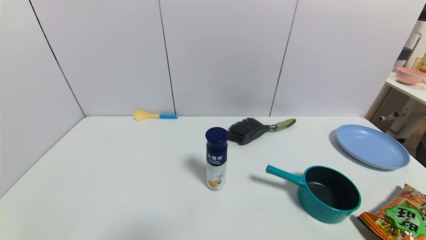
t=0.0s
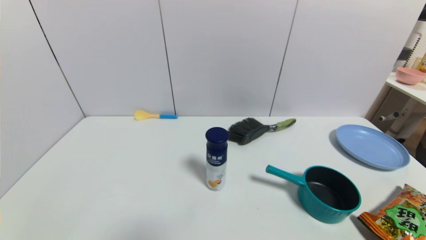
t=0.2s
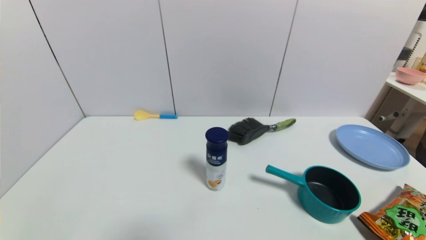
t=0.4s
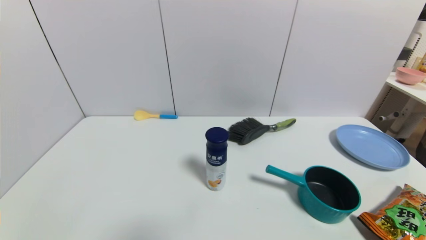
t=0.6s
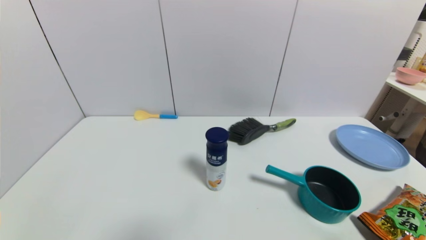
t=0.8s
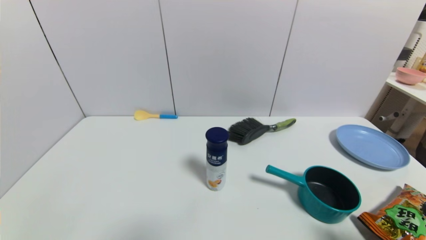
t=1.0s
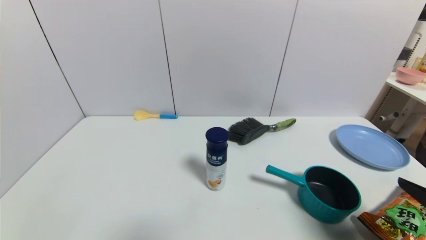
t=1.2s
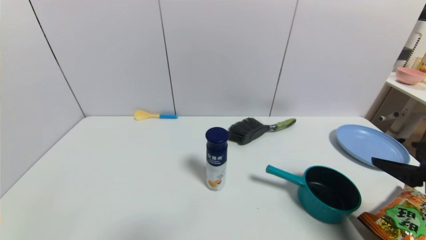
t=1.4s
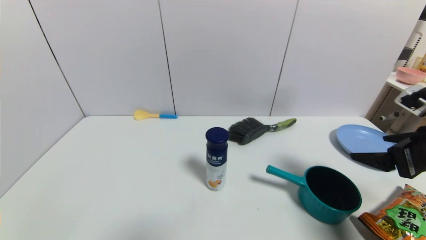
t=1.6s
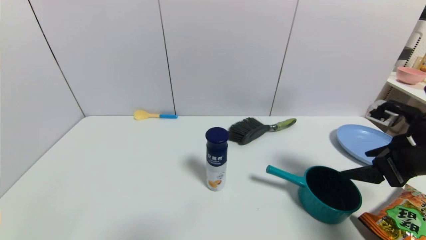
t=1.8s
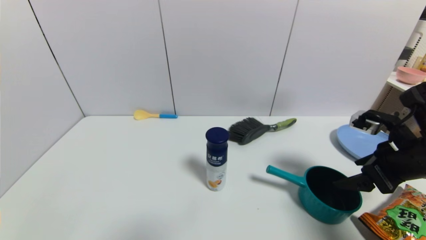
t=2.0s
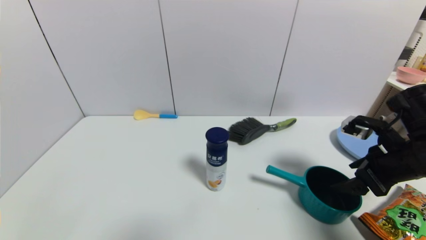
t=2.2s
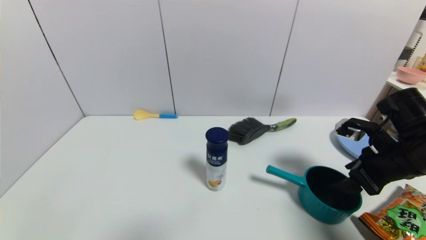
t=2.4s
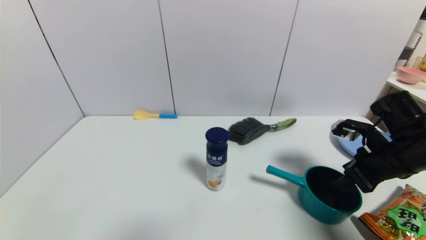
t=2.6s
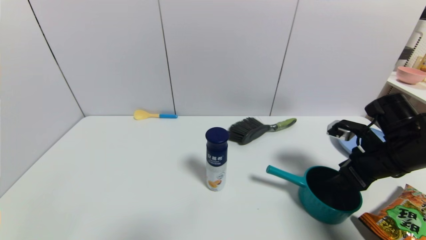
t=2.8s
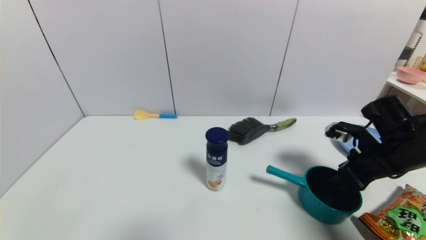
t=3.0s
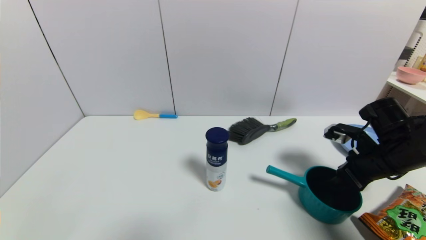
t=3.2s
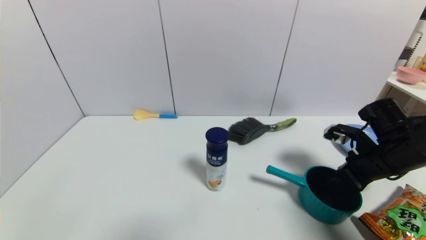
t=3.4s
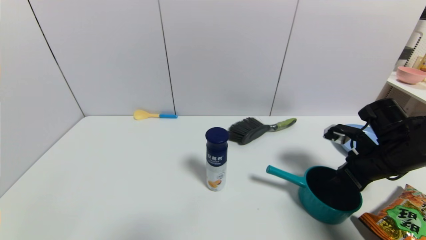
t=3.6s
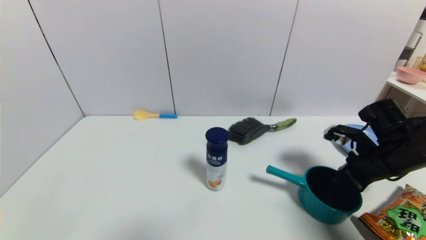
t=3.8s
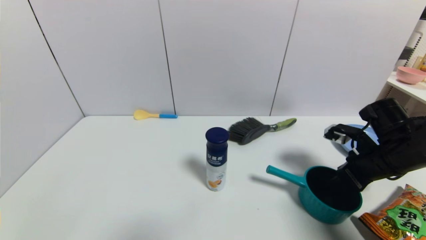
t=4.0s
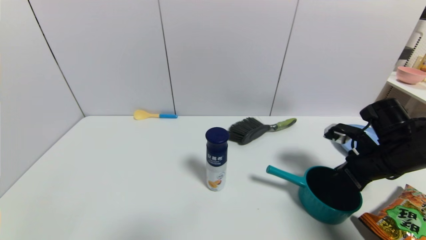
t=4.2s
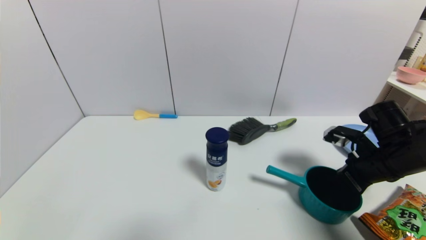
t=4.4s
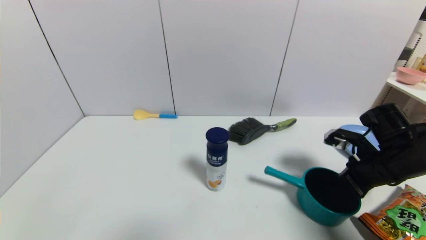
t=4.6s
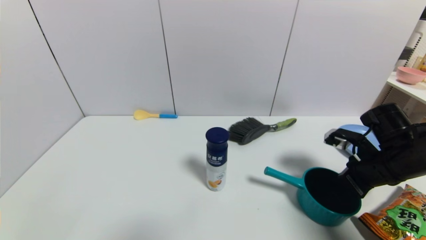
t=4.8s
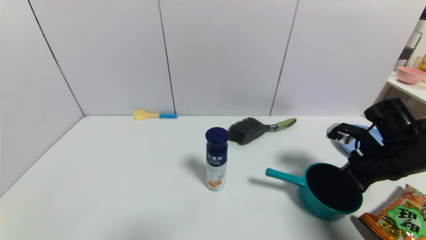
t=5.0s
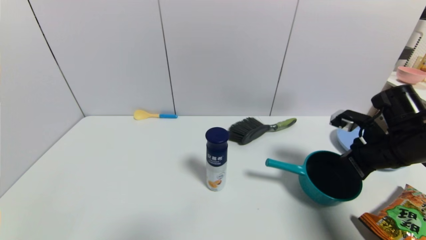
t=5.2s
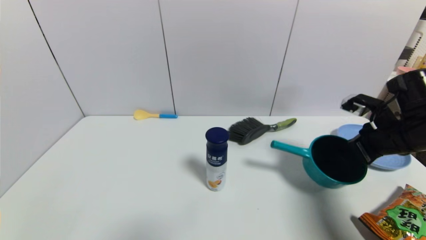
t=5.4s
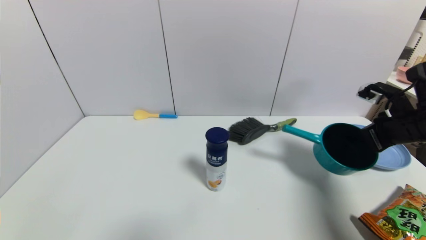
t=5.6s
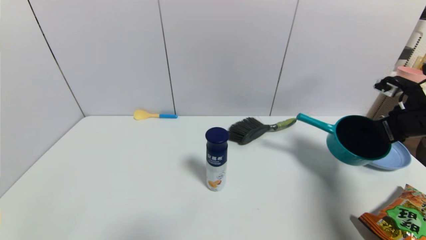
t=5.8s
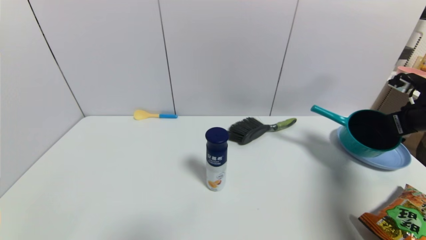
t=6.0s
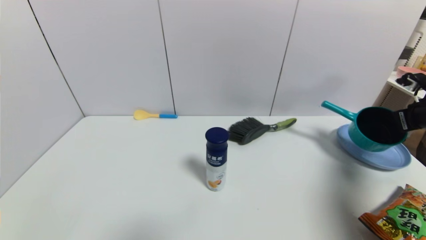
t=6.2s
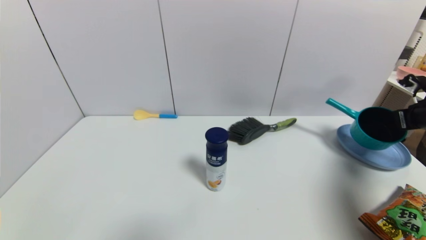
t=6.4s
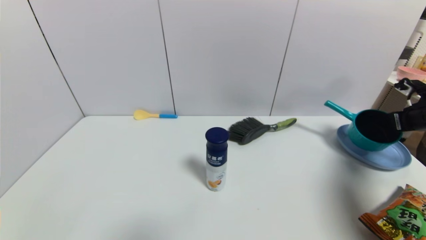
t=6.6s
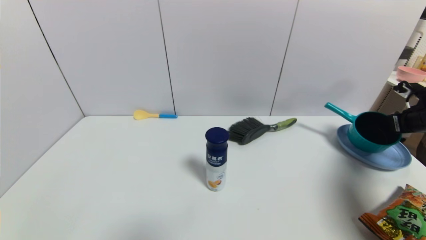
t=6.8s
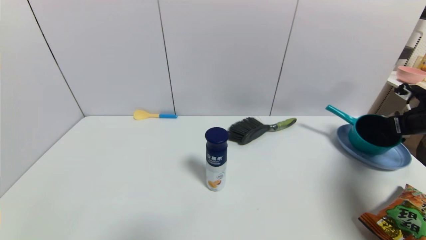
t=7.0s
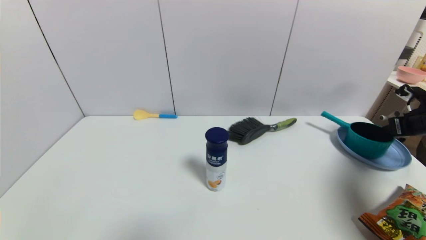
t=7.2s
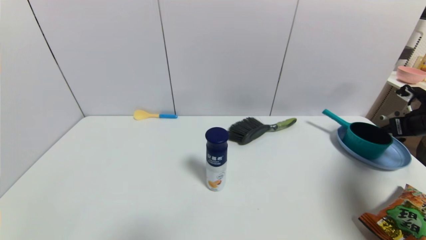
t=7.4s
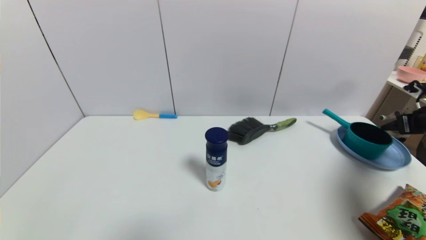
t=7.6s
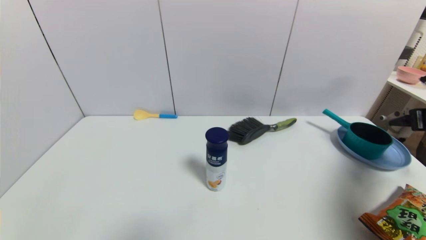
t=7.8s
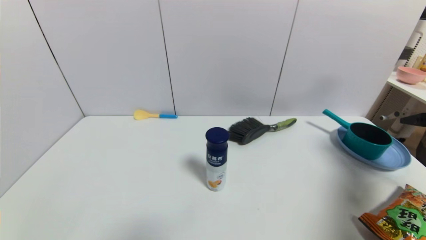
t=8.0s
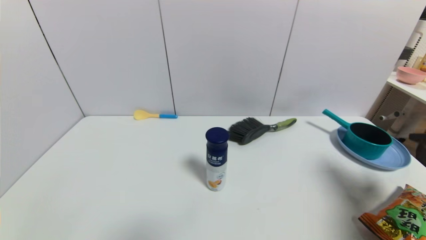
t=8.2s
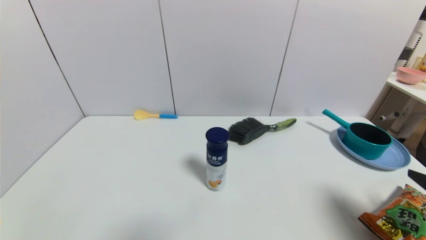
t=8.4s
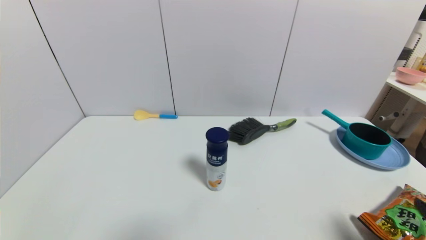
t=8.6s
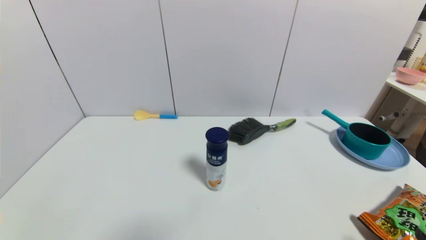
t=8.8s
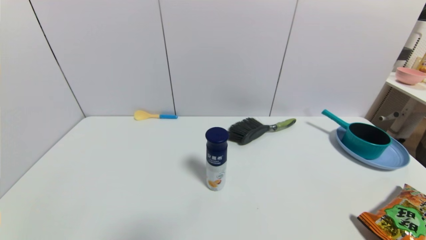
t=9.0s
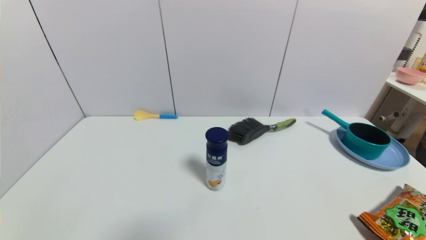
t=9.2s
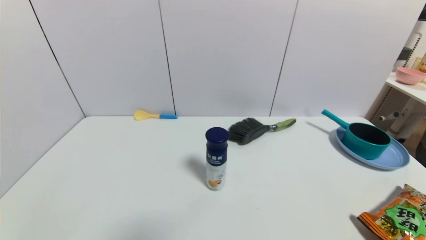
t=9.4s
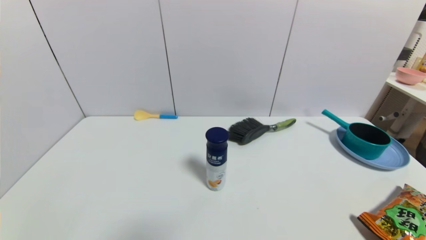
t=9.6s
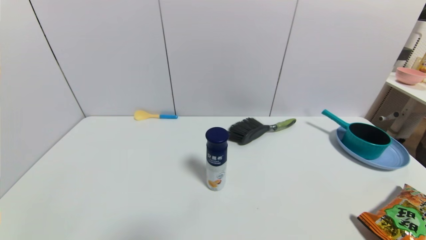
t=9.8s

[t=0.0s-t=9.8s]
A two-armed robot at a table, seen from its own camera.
Task of the whole recording: use a gripper to pick the target object and place on the blue plate.
Step, t=0.0s to t=4.6s: Grasp the blue pot with the right gripper.
Step, t=4.8s to t=8.0s: Place the blue pot on the blue plate with the right gripper.
t=0.0s to t=1.4s: The right gripper moves forward and upward, roughly 20 cm.
t=1.4s to t=2.8s: The right gripper moves forward and downward, approximately 15 cm.
t=2.8s to t=4.2s: The right gripper closes.
t=4.2s to t=5.6s: The right gripper goes roughly 5 cm upward, and closes.
t=5.6s to t=7.0s: The right gripper shifts about 15 cm to the right and forward.
t=7.0s to t=8.4s: The right gripper travels backward and to the left by some 30 cm, and opens its fingers.
t=8.4s to t=9.8s: The right gripper goes roughly 15 cm downward and backward.

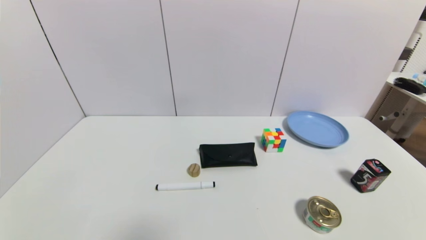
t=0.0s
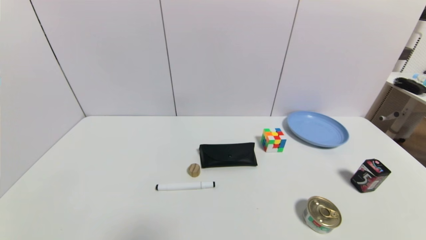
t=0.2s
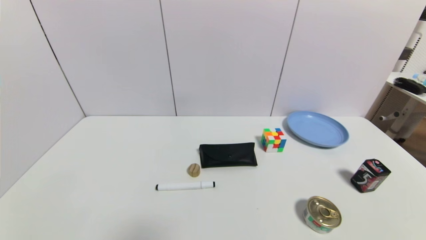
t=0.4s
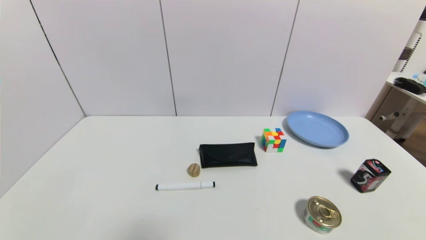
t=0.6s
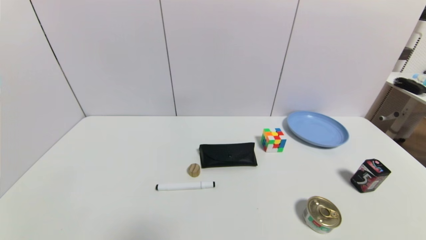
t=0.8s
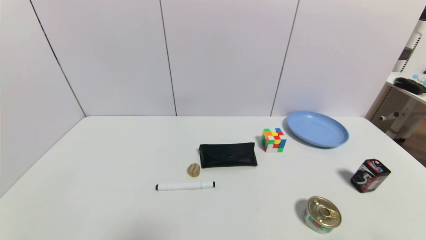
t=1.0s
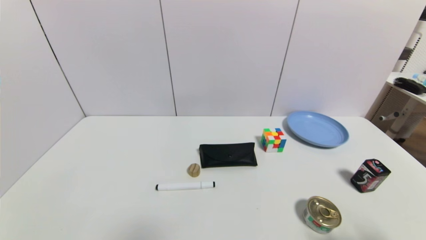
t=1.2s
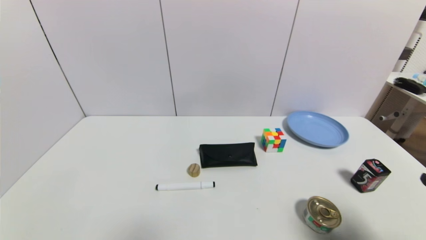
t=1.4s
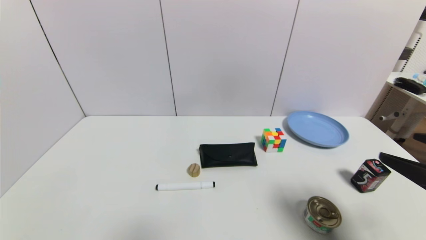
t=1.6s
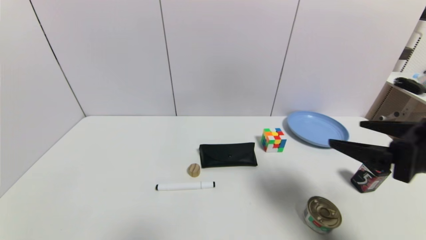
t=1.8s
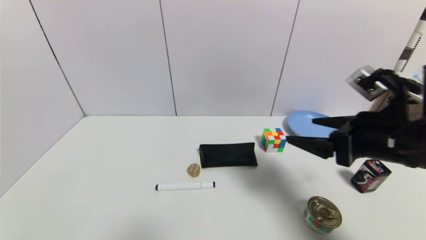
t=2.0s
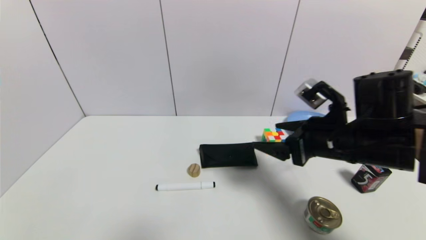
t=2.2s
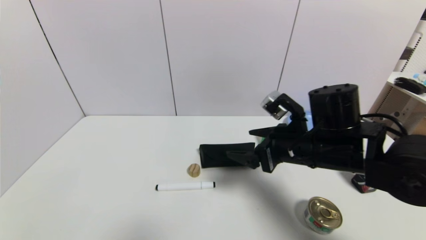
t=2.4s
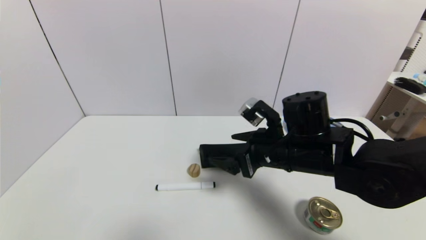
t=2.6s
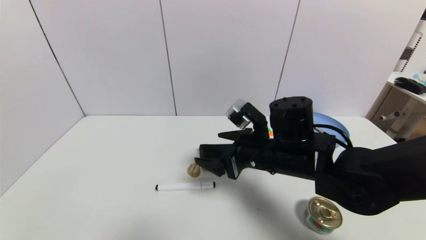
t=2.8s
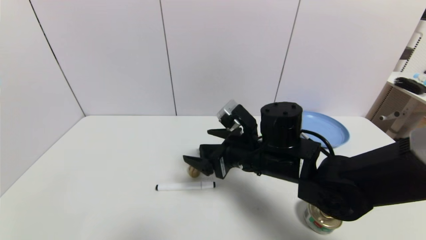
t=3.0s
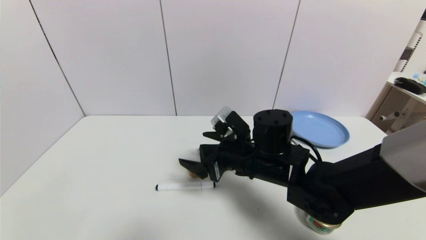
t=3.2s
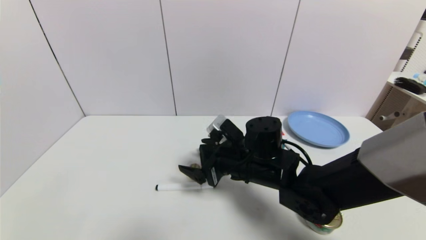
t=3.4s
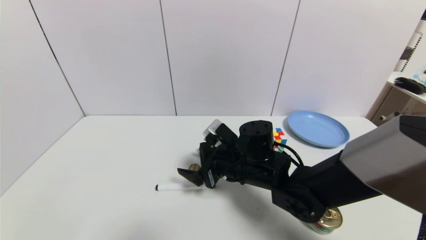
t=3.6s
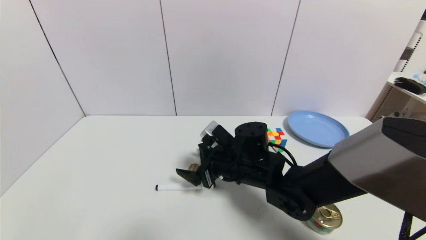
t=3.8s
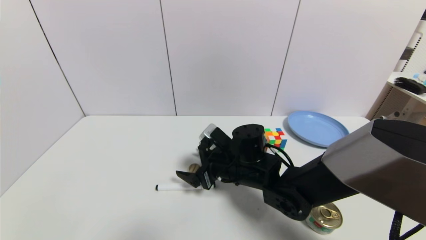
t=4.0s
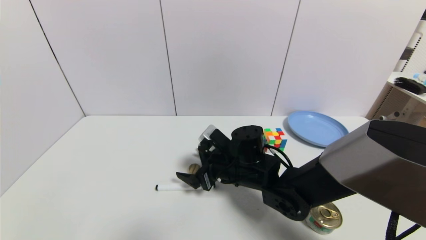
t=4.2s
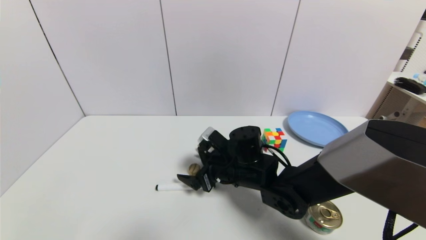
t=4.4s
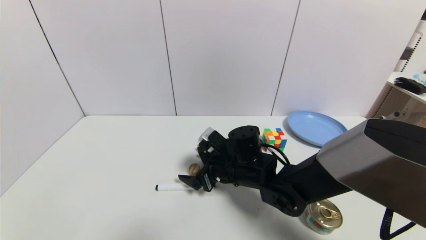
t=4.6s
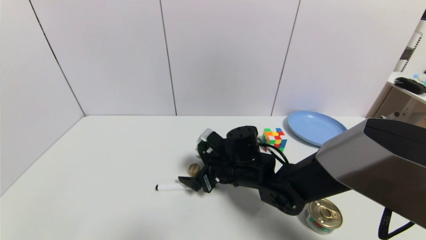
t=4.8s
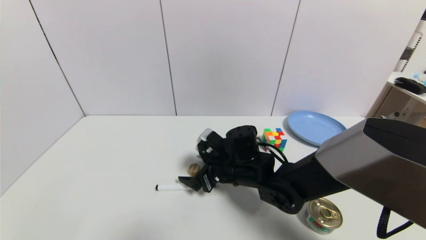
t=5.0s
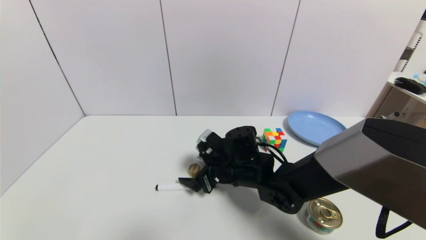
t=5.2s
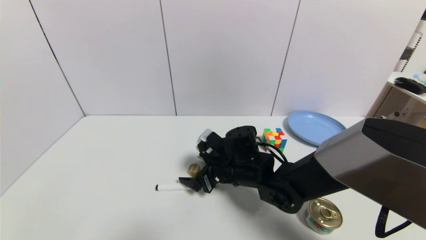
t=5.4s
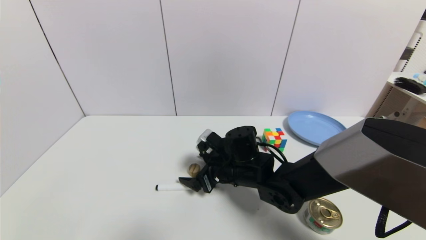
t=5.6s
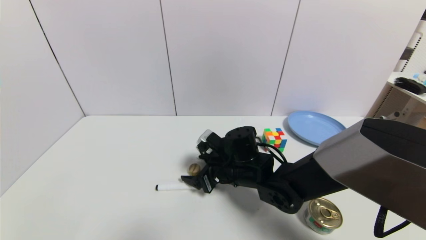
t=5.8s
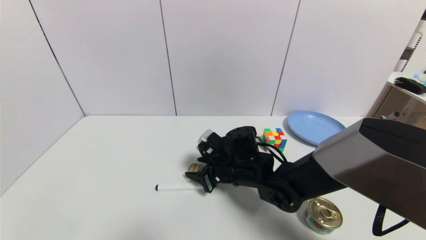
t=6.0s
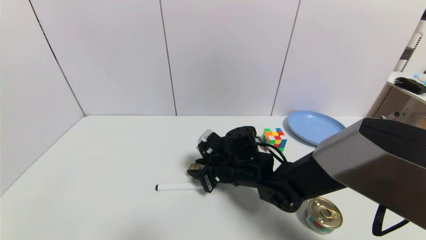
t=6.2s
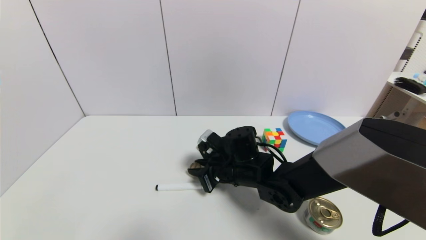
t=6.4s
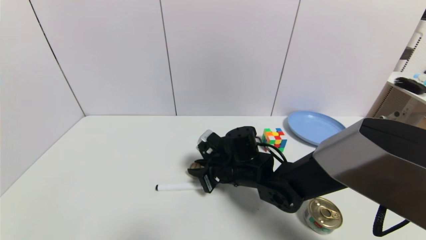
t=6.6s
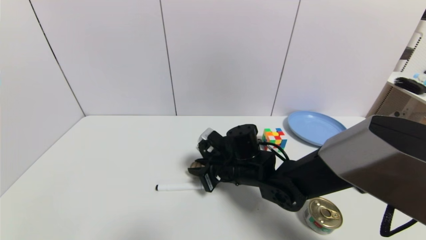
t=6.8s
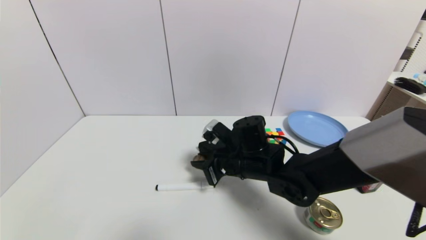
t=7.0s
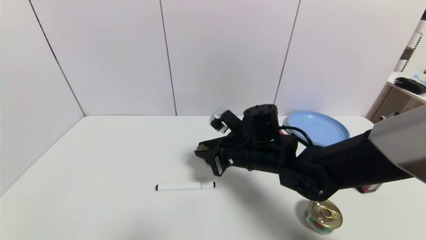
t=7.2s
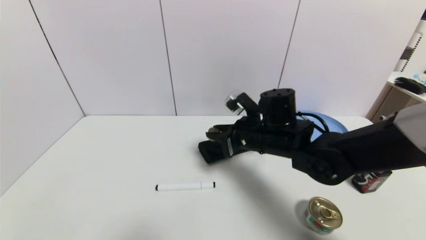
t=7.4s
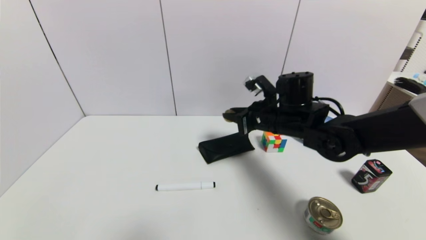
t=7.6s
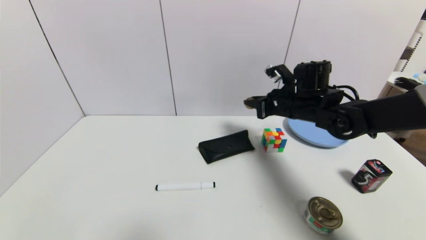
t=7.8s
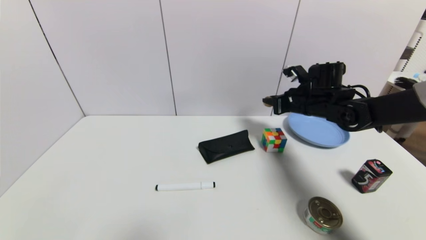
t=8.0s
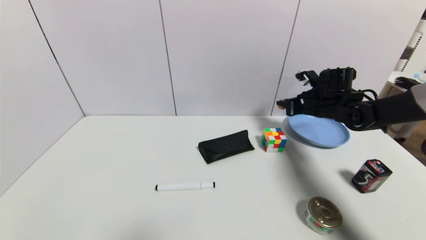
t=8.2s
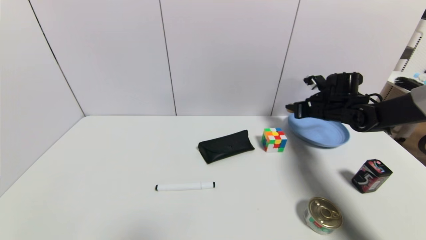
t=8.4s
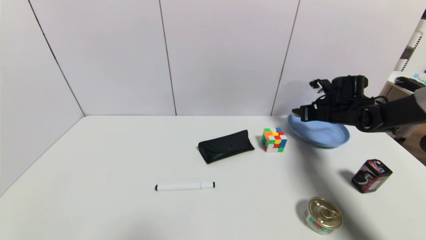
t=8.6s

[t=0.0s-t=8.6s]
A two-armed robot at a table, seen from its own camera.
Task of the whole recording: use a gripper to pick the target object and place on the blue plate.
Step, t=0.0s to t=6.4s: Grasp the round wooden block with the right gripper.
t=0.0s to t=1.4s: The right gripper moves upward and forward, approximately 15 cm.
t=1.4s to t=2.8s: The right gripper moves to the left and forward, approximately 30 cm.
t=2.8s to t=4.4s: The right gripper heads downward and to the left, covering about 10 cm.
t=4.4s to t=5.8s: The two grippers keep their place.
t=5.8s to t=7.2s: The right gripper heads upward, covering about 5 cm, and closes up.
t=7.2s to t=8.6s: The right gripper goes approximately 30 cm to the right and forward.
